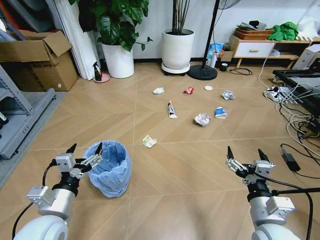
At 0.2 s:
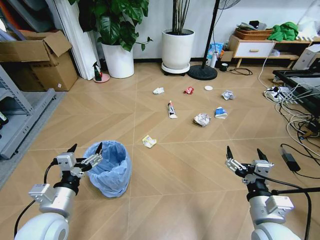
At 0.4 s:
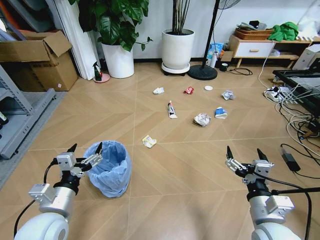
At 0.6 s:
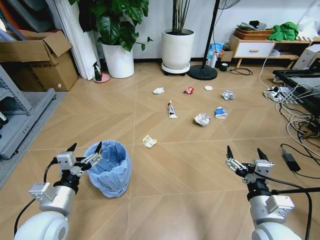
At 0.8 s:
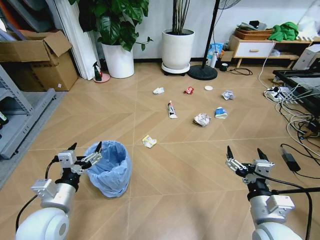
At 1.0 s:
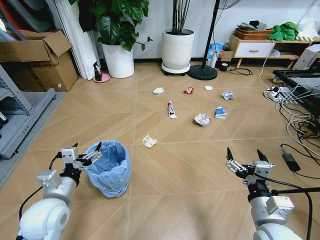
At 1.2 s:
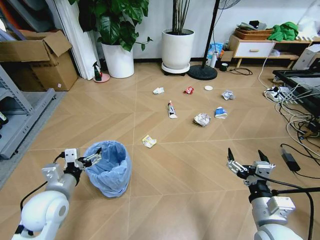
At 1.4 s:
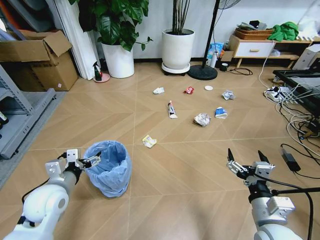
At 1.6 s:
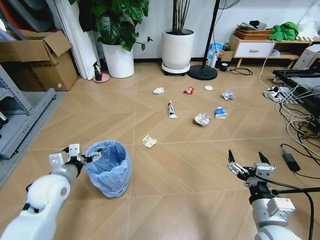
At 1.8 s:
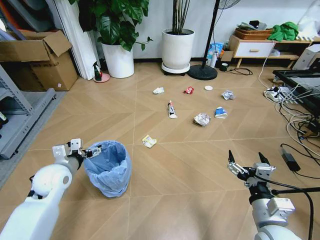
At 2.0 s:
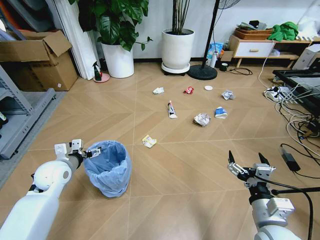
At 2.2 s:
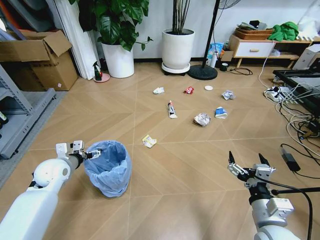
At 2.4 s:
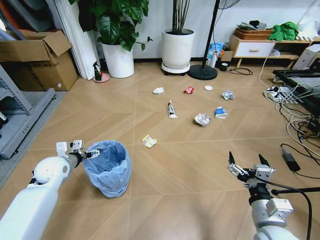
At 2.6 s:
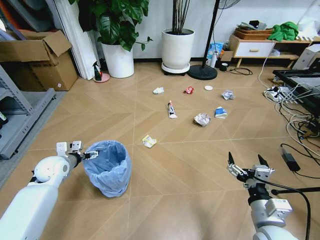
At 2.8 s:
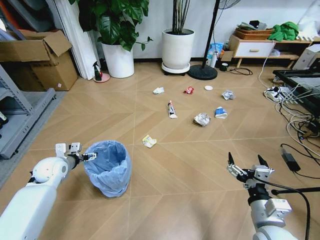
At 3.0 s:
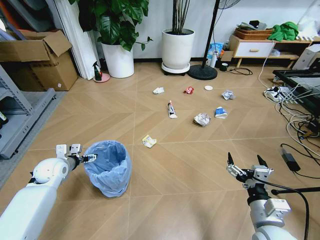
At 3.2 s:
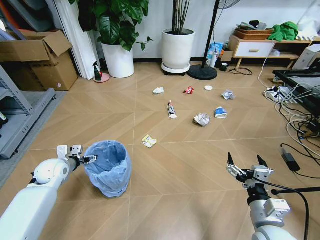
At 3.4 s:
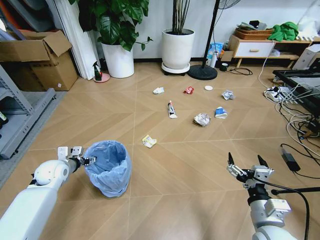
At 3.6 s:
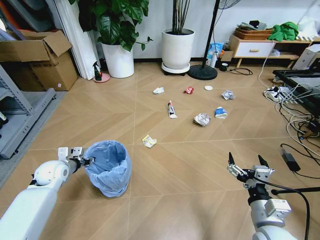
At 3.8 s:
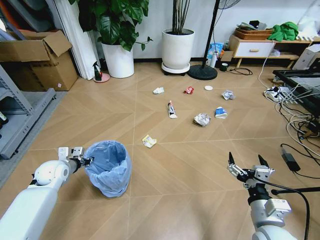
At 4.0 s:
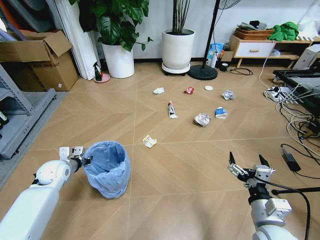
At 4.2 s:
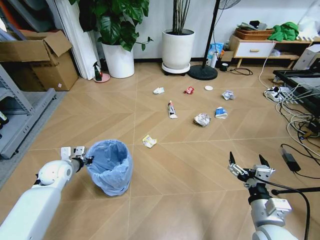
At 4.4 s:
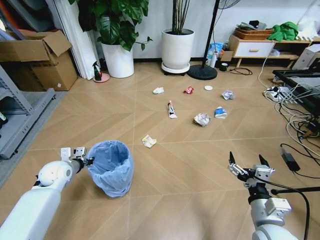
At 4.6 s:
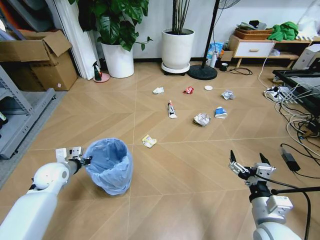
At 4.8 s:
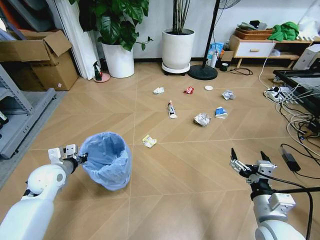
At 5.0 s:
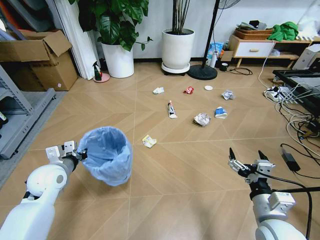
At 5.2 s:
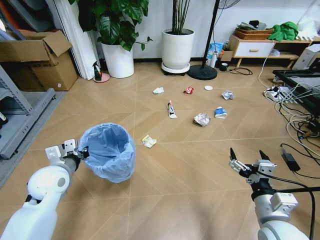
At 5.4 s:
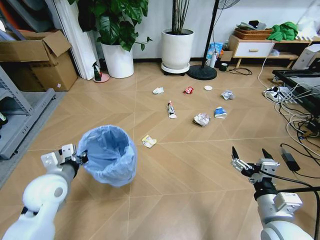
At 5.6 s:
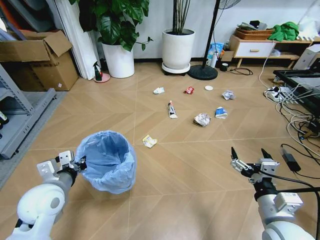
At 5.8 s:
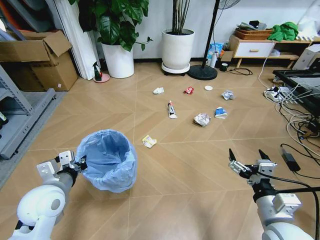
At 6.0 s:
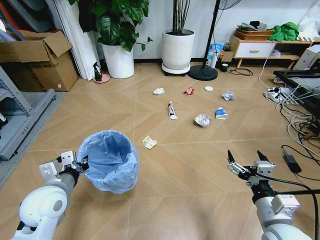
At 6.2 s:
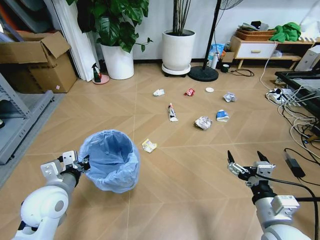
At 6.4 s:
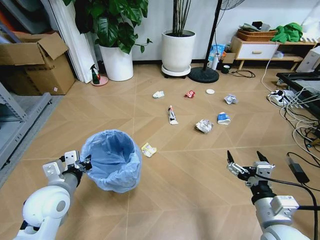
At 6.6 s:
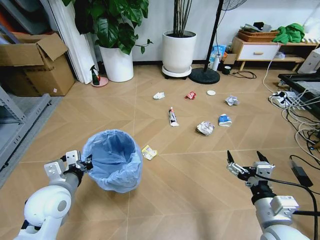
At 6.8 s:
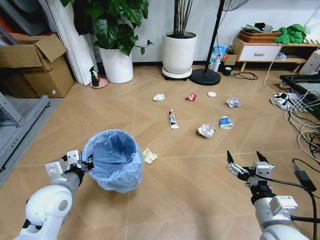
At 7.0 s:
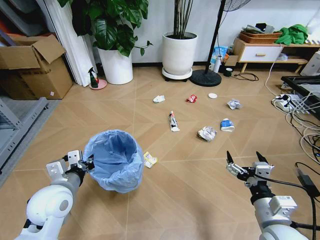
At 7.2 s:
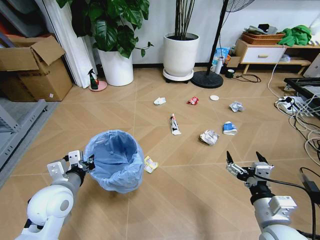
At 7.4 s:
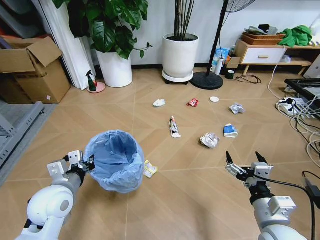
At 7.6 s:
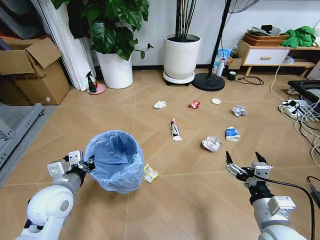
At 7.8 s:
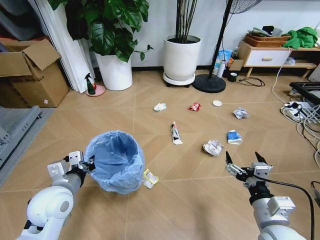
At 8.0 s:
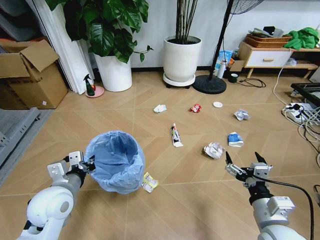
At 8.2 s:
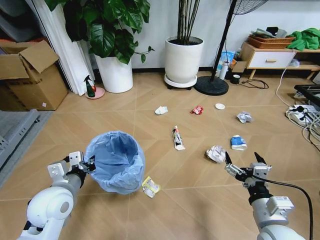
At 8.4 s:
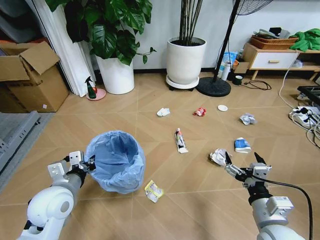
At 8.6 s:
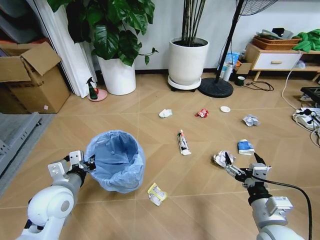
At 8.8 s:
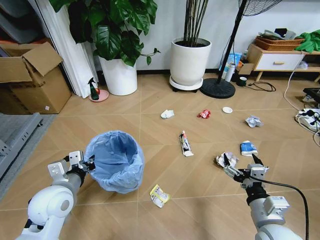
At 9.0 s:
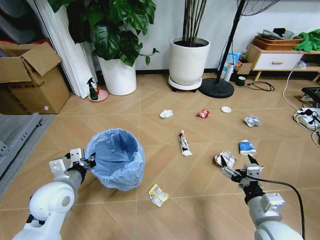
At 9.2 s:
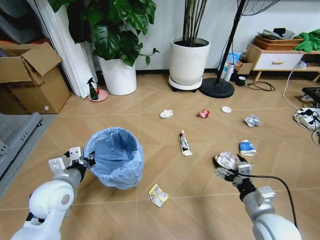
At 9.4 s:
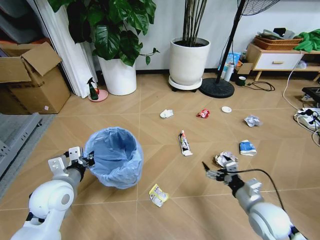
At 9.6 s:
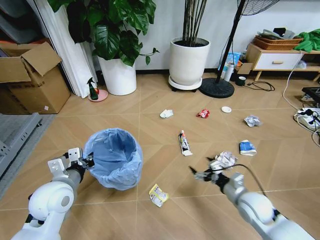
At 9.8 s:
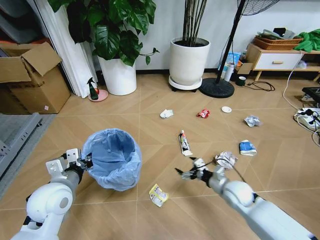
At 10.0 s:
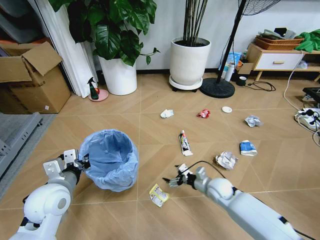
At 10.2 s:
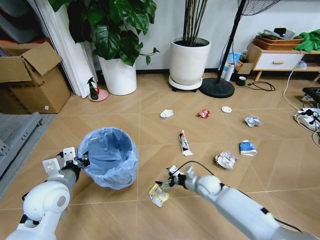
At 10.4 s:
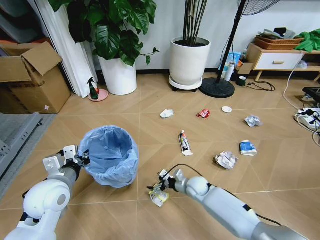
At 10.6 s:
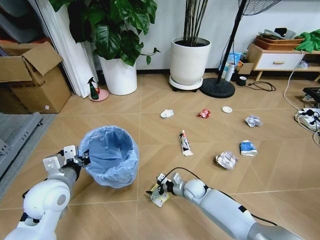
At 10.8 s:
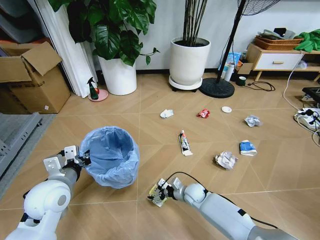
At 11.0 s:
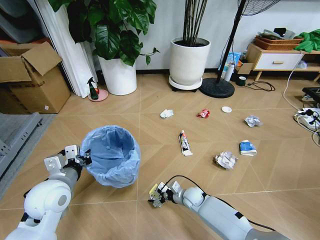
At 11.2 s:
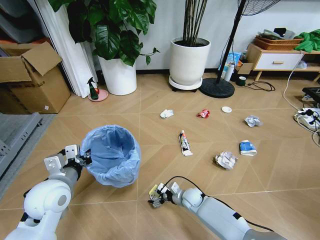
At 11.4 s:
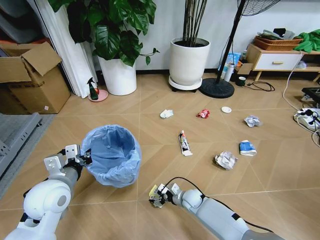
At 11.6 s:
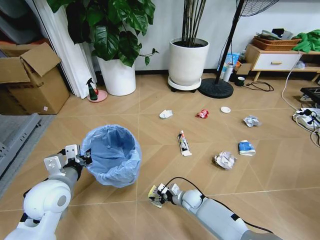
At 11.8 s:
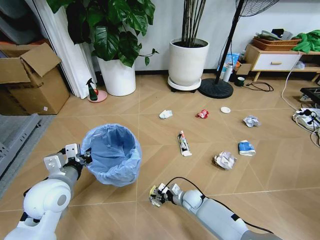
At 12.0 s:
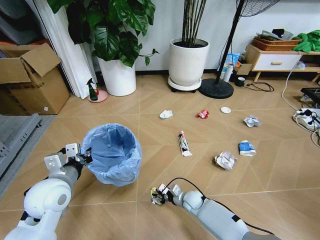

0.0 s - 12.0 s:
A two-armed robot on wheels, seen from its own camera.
Task of the whole recording: Pick up the trash bin and place the garbage on the floor into it.
1.6 s - 3.0 s: The left gripper is displaced forward, to the left and downward by some 15 cm.
3.0 s - 4.4 s: The left gripper closes.
4.4 s - 6.0 s: The left gripper travels backward, upward and to the right by roughly 20 cm.
9.0 s - 10.4 s: The right gripper shifts roughly 30 cm forward, downward and to the left.
10.4 s - 12.0 s: The right gripper heads downward, covering about 5 cm, and closes.

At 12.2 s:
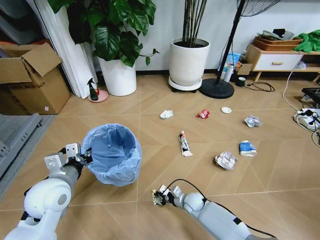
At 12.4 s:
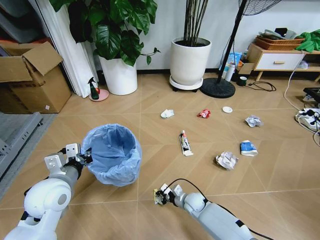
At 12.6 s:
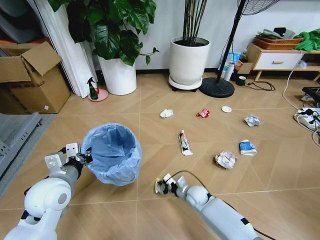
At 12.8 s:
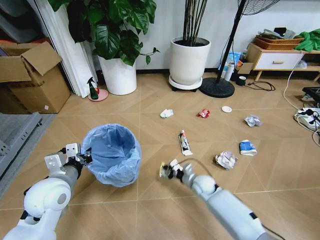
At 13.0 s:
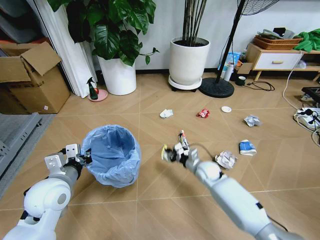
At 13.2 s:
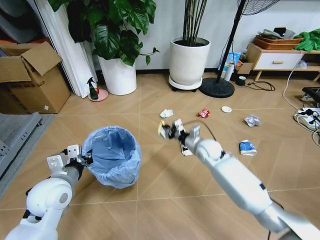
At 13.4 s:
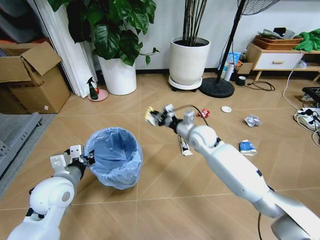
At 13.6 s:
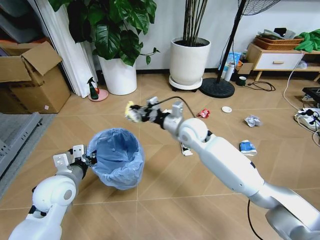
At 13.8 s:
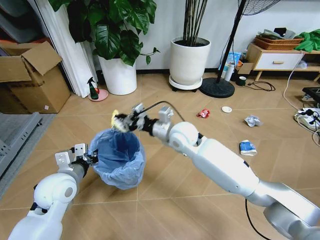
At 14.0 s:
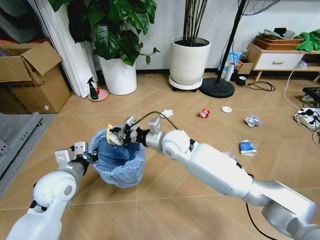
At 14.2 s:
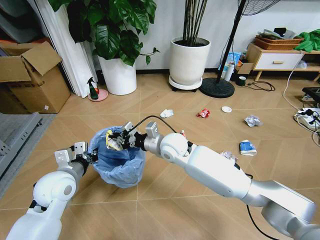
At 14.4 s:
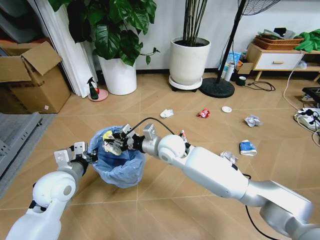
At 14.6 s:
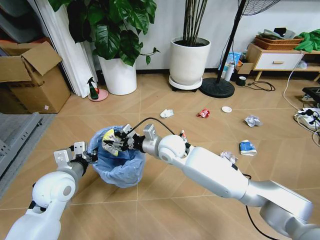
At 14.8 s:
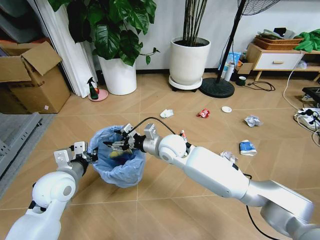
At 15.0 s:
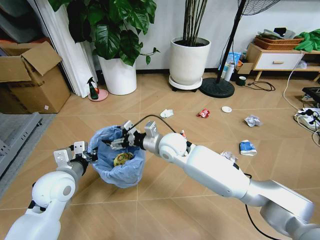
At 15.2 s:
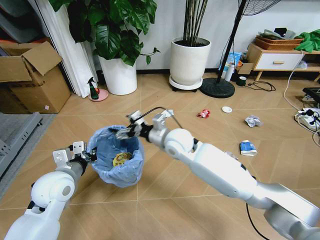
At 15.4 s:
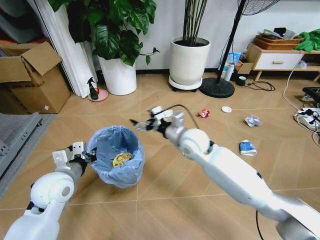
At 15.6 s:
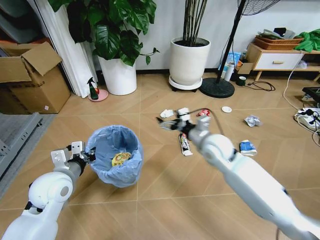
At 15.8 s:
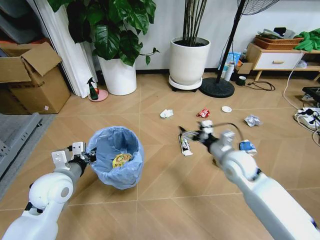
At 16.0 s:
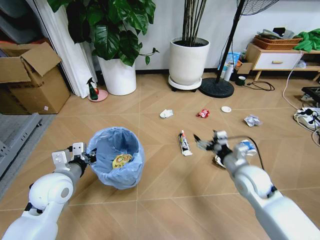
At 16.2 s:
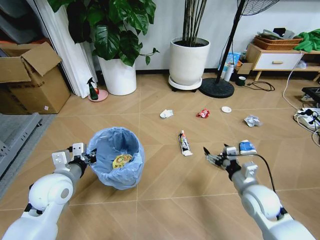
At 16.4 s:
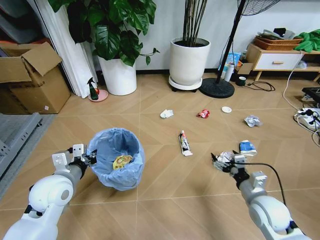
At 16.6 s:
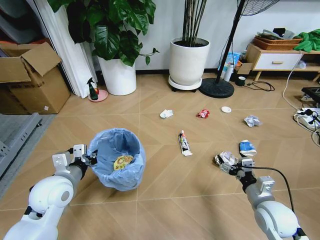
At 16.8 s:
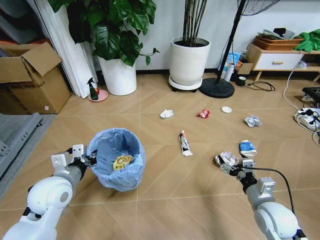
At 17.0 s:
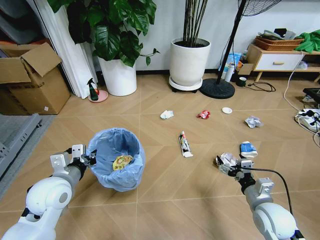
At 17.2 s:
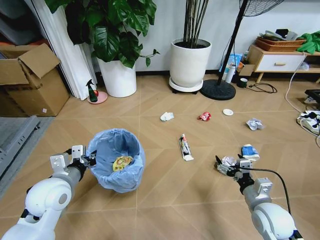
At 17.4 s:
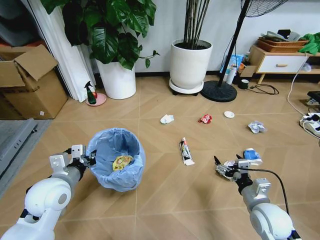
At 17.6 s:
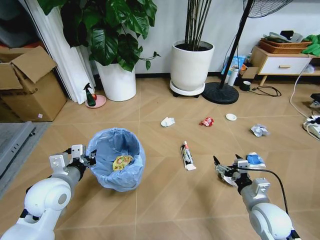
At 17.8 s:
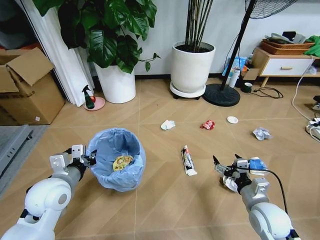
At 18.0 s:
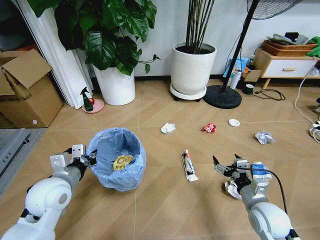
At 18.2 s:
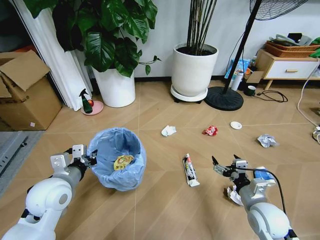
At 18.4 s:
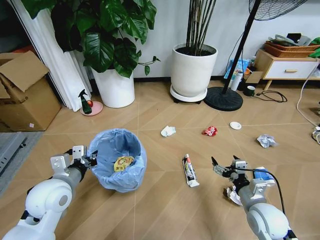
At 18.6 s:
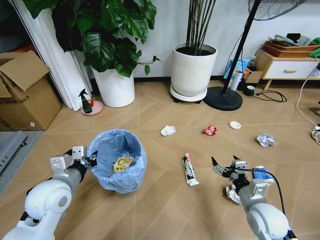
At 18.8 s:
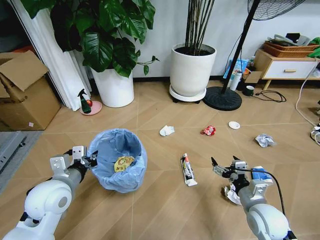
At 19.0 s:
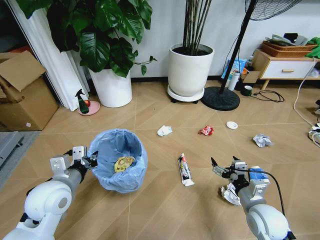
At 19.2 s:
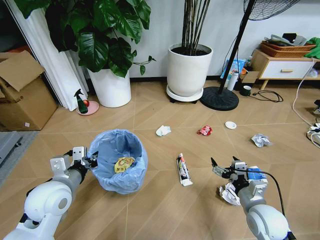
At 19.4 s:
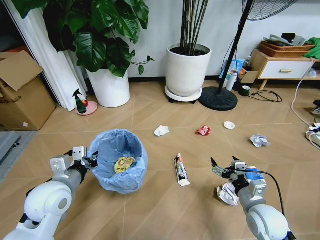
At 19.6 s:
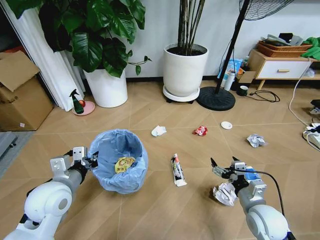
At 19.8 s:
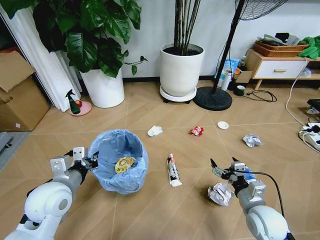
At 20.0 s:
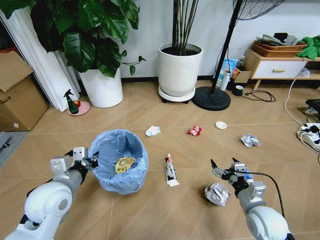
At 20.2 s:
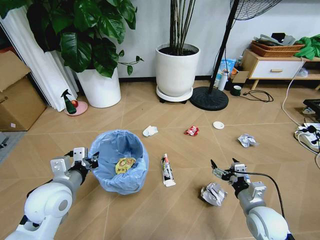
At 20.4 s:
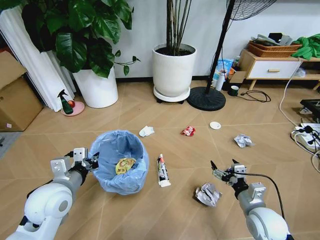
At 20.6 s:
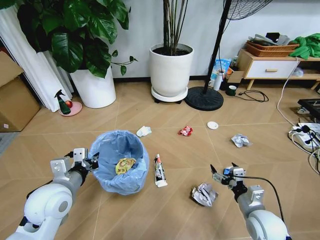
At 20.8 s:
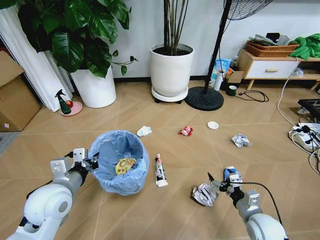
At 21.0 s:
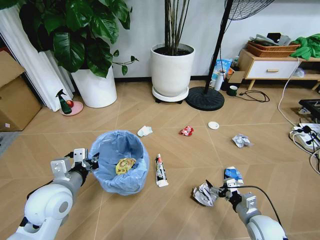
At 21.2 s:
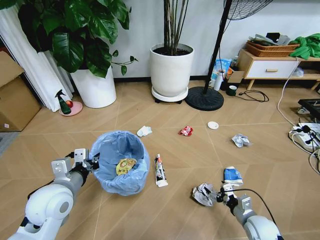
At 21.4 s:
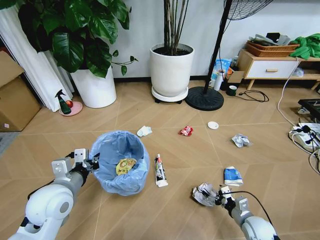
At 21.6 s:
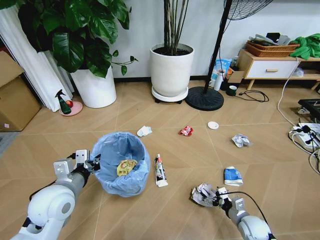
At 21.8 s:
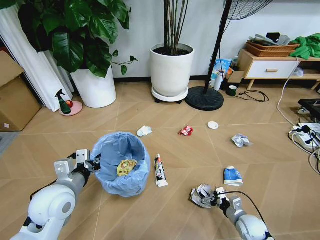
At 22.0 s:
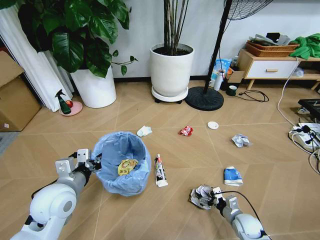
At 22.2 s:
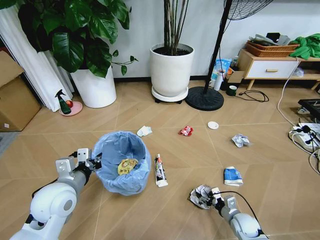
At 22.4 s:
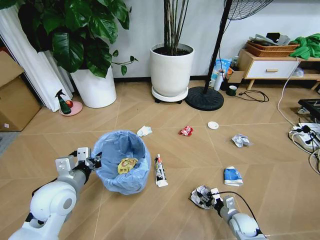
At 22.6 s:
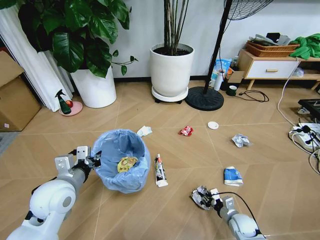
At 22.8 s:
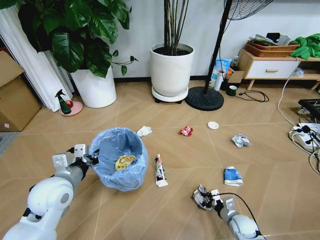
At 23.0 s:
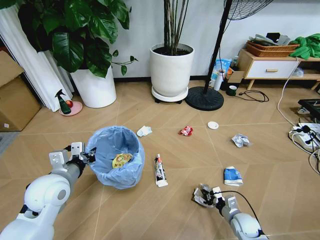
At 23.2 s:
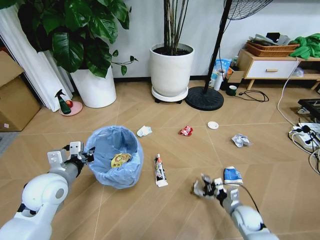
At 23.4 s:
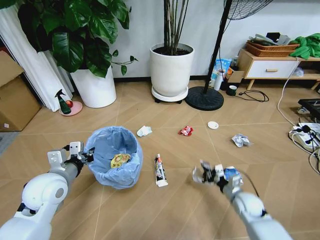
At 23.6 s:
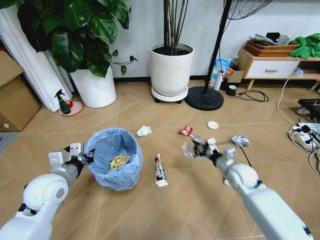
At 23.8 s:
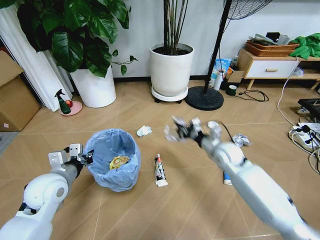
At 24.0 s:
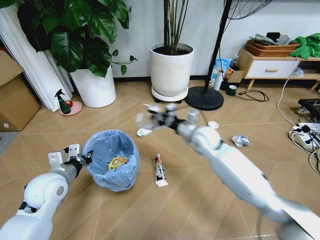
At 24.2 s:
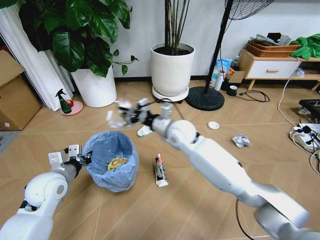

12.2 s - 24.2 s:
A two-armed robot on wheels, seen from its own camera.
Task of the whole recording: Pick up the trash bin and place the garbage on the floor into it.
12.2 s - 13.8 s: The right gripper goes about 35 cm upward.
13.8 s - 15.2 s: The right gripper opens up.
15.2 s - 16.6 s: The right gripper is displaced to the right, backward and downward by about 35 cm.
19.8 s - 21.2 s: The right gripper is displaced downward by about 10 cm.
21.2 s - 22.6 s: The right gripper moves downward, some 10 cm, and closes its fingers.
22.6 s - 24.2 s: The left gripper shifts roughly 5 cm to the left. The right gripper is displaced upward, to the left and forward by approximately 50 cm.
